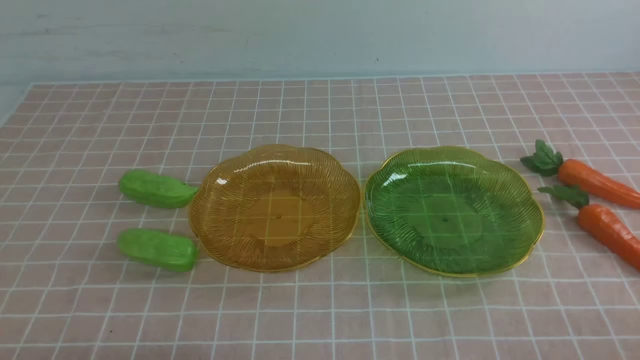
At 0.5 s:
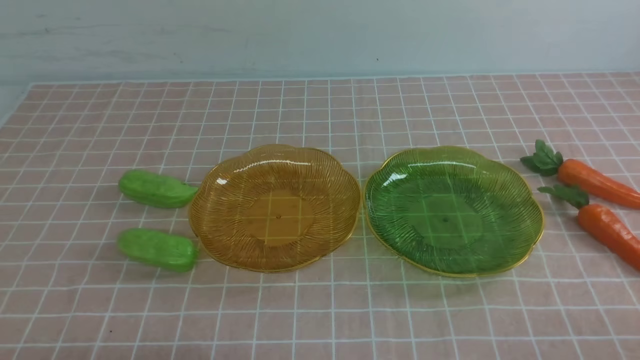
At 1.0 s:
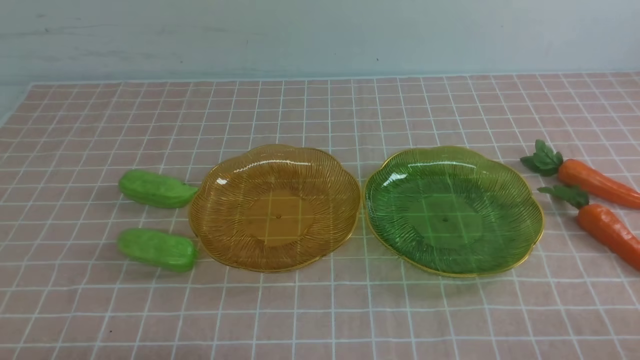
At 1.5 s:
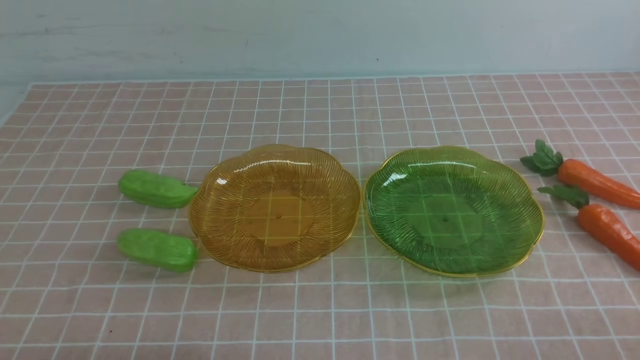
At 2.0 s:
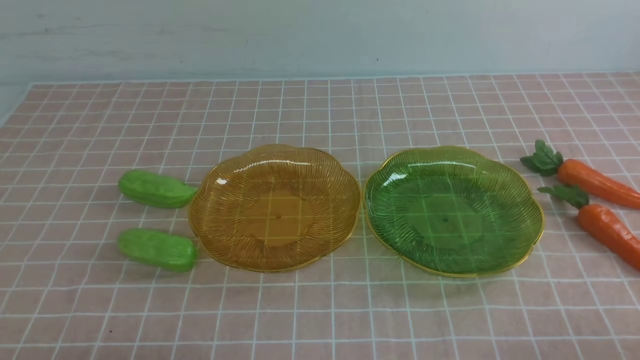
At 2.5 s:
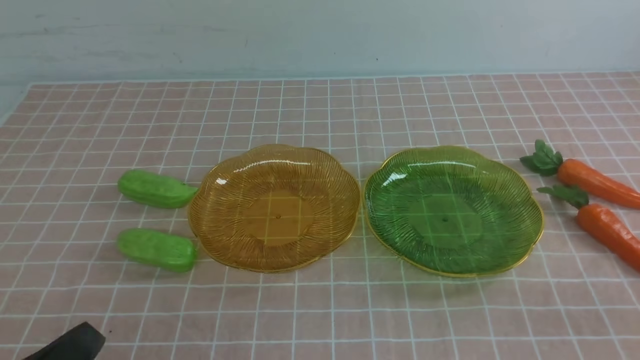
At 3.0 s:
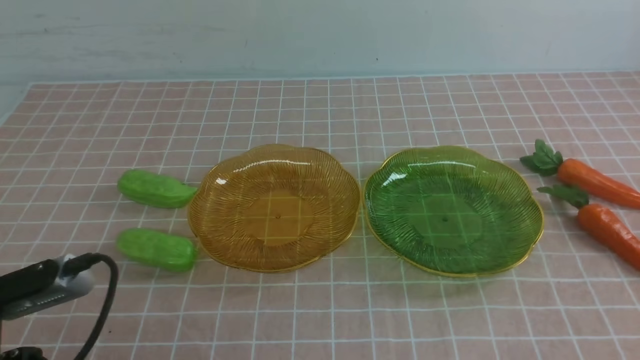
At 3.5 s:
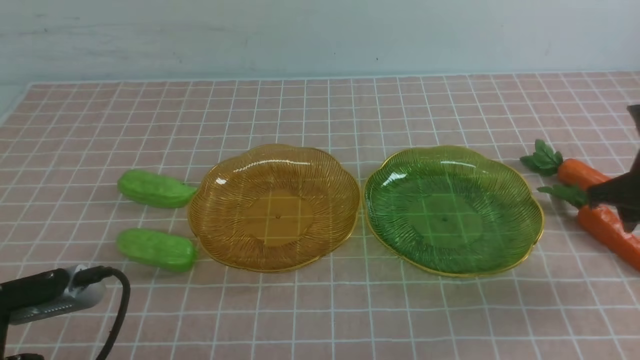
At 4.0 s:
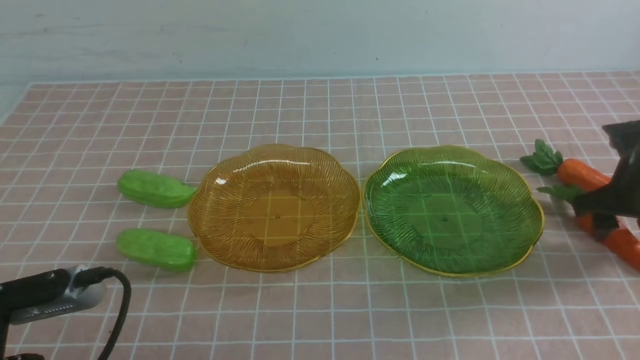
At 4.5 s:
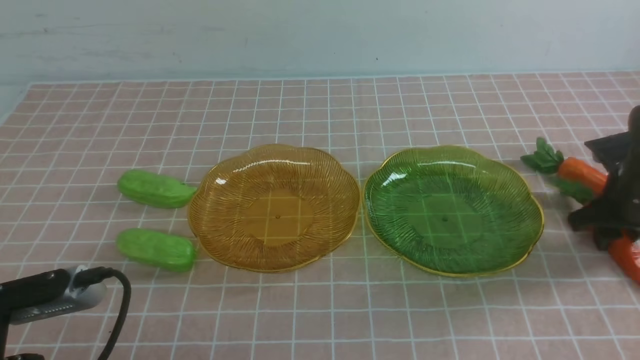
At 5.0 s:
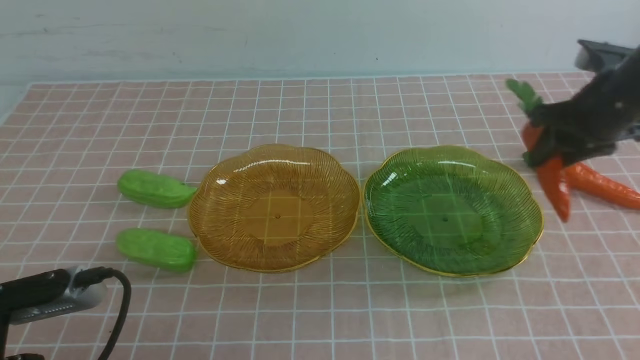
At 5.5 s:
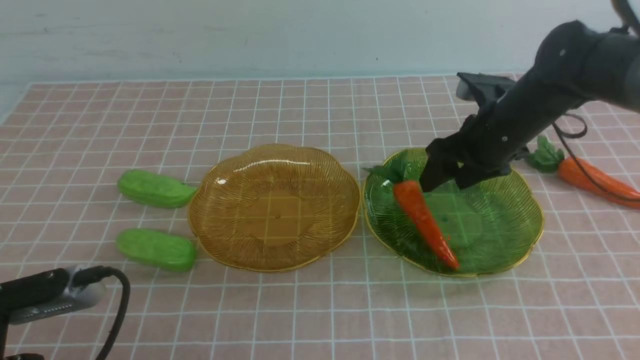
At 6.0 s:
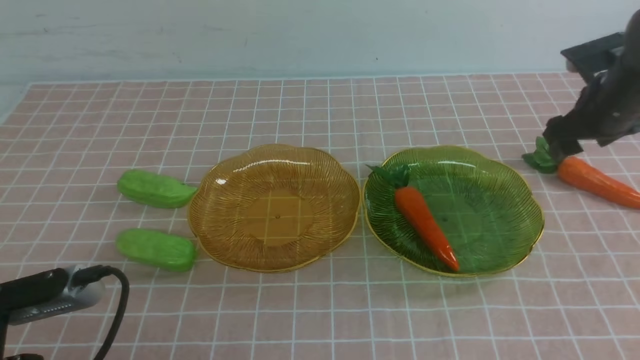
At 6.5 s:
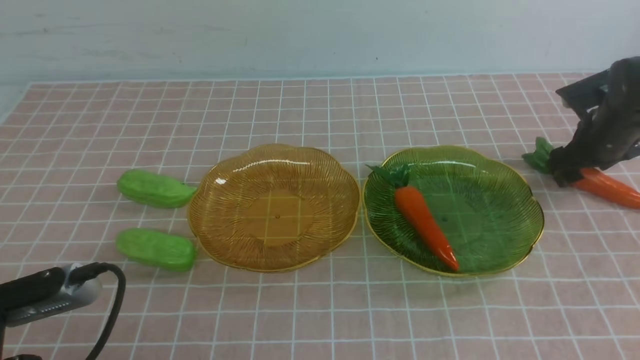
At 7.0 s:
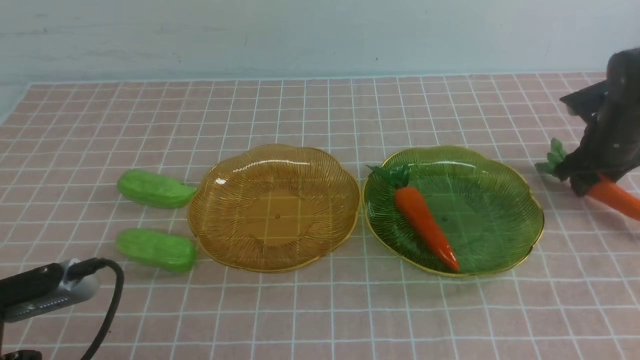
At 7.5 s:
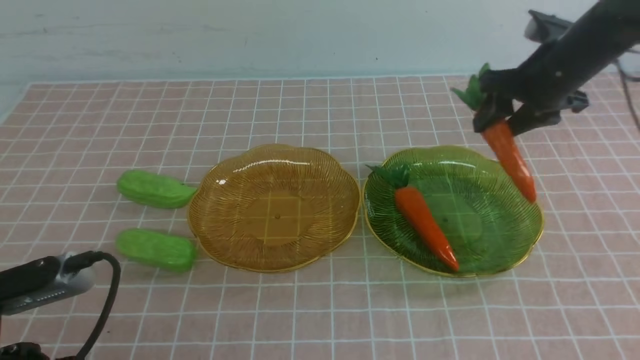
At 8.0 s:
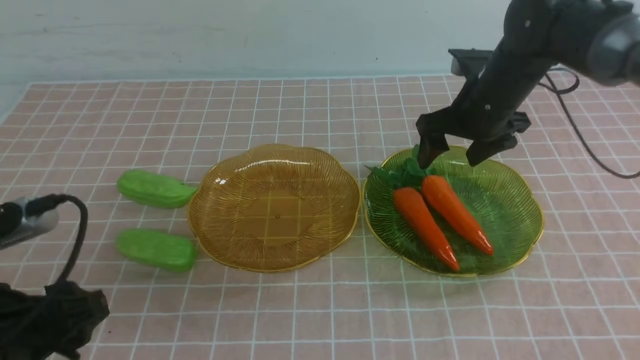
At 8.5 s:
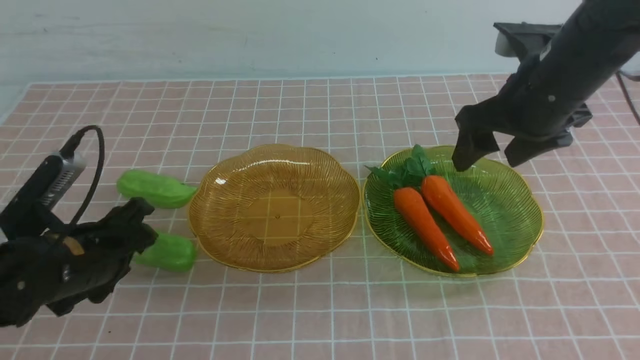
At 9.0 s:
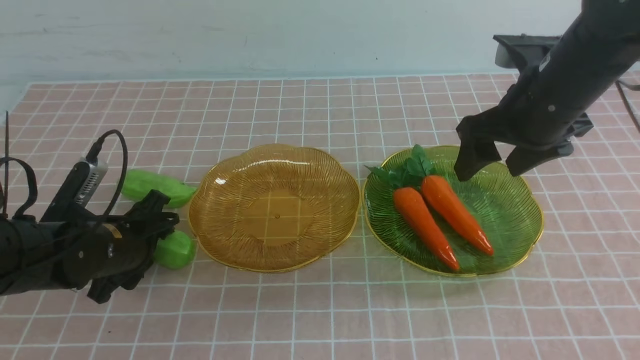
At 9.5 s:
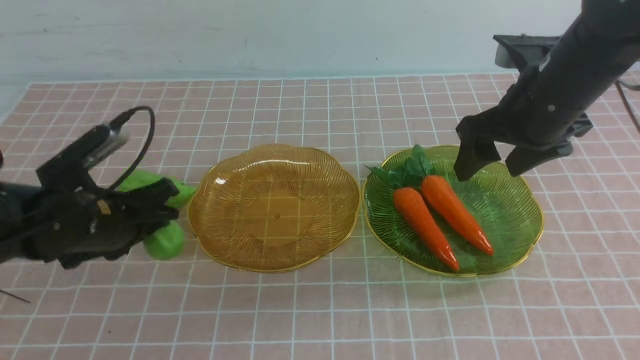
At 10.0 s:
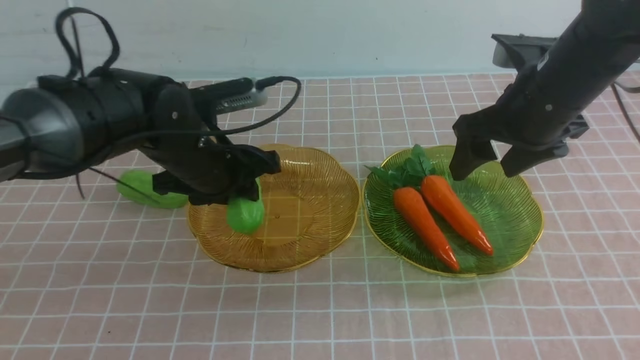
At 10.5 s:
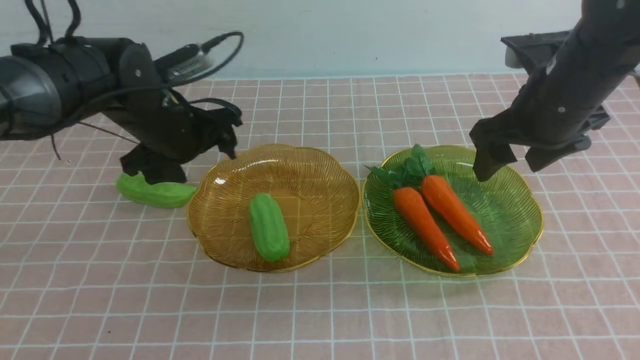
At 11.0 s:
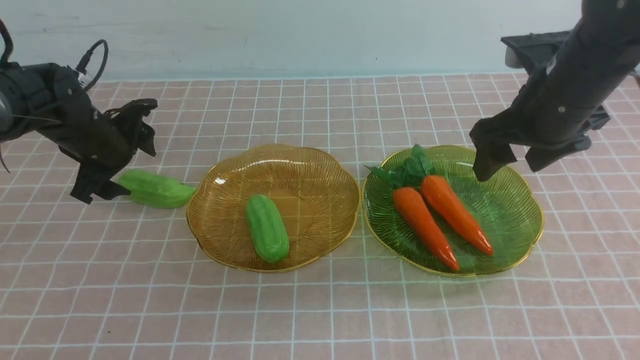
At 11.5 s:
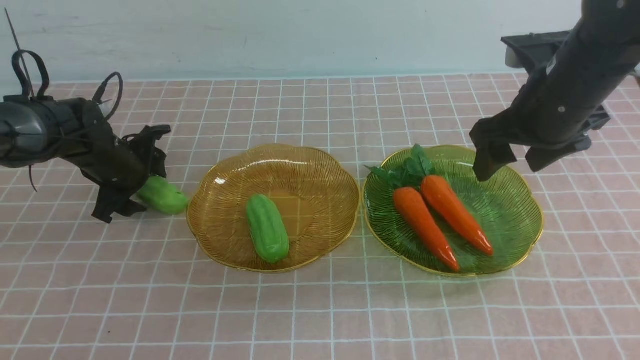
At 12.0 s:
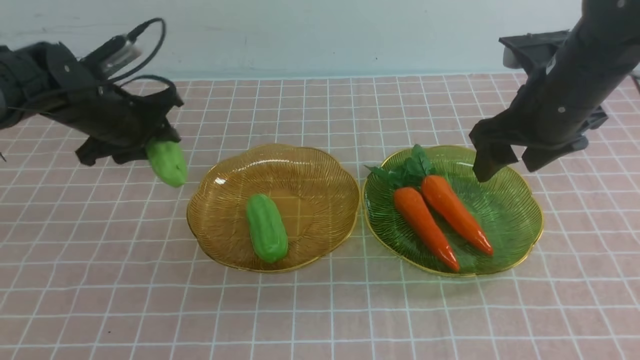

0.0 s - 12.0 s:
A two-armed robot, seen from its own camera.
Step, 0.0 s - 5.5 s: use the right arm to grab a carrot and put it into the right plate.
2.0 s - 4.0 s: The left gripper travels upward and forward by approximately 10 cm, while the right gripper travels forward by approximately 30 cm, and opens.
4.0 s - 6.0 s: The right gripper is displaced forward by some 10 cm, and travels to the left and back again, some 15 cm each way.
6.0 s - 8.0 s: The right gripper moves to the left, roughly 15 cm, while the left gripper opens.
8.0 s - 10.0 s: The right gripper goes roughly 10 cm backward and upward. The left gripper moves forward and to the right, roughly 25 cm.
10.0 s - 12.0 s: The left gripper heads to the left and forward, covering roughly 10 cm, and opens and closes again.

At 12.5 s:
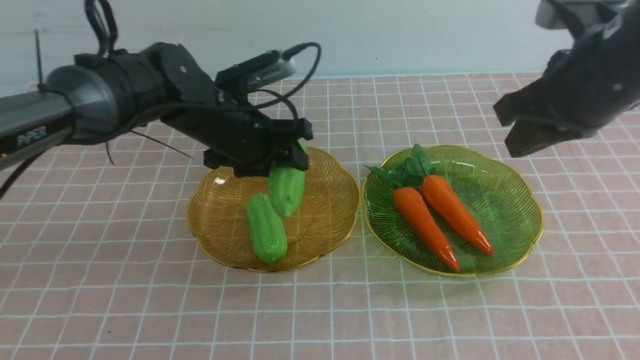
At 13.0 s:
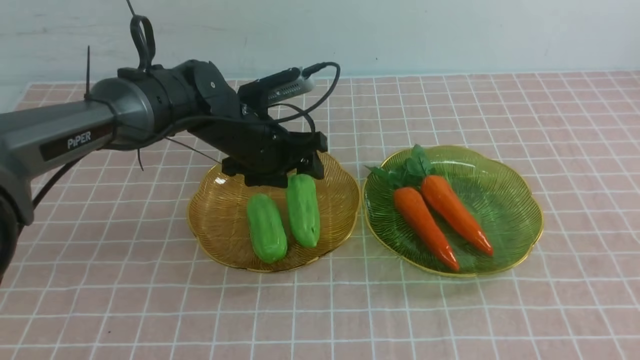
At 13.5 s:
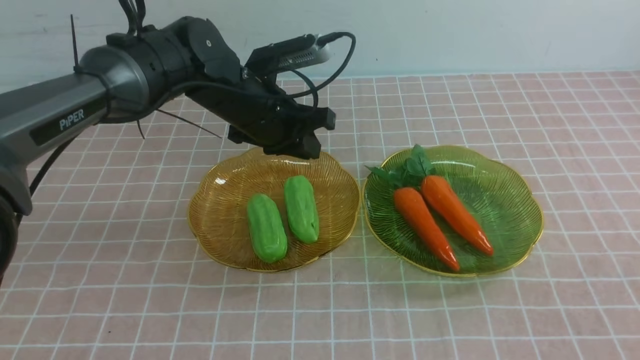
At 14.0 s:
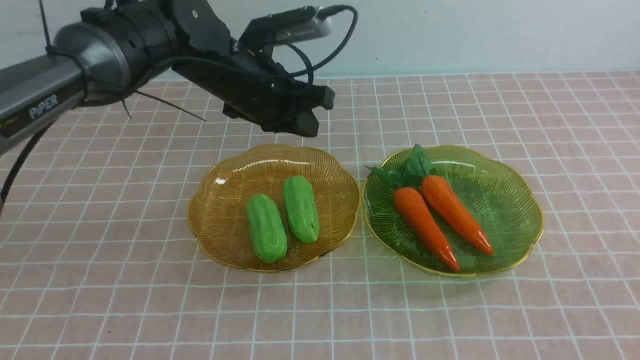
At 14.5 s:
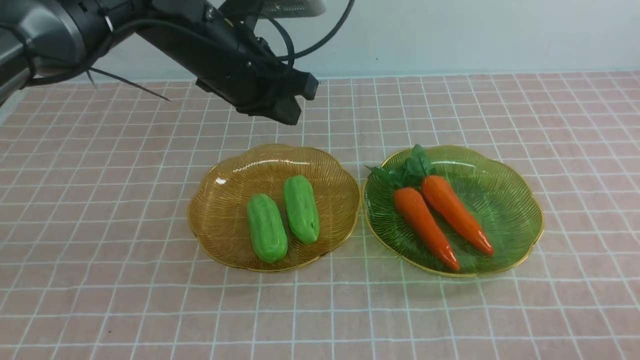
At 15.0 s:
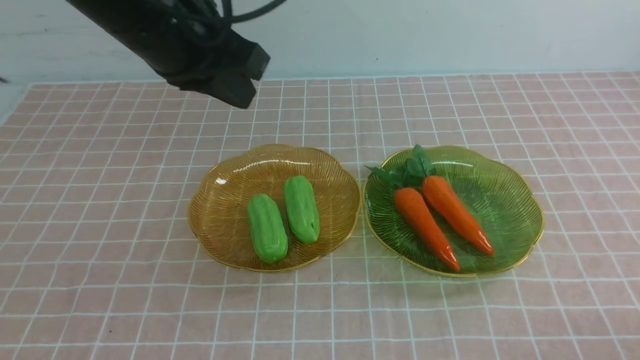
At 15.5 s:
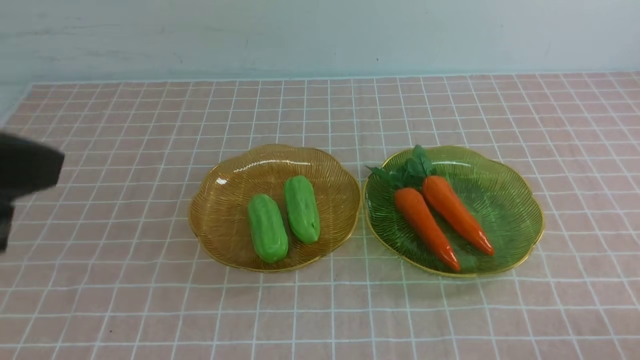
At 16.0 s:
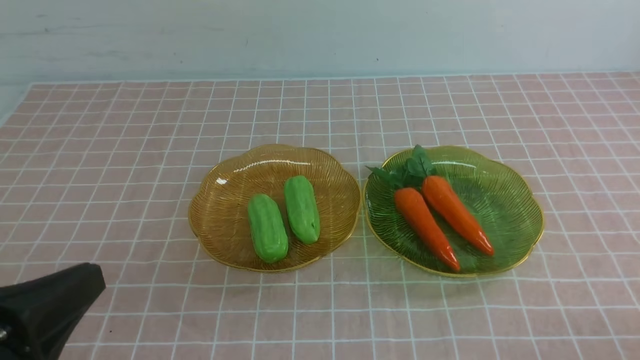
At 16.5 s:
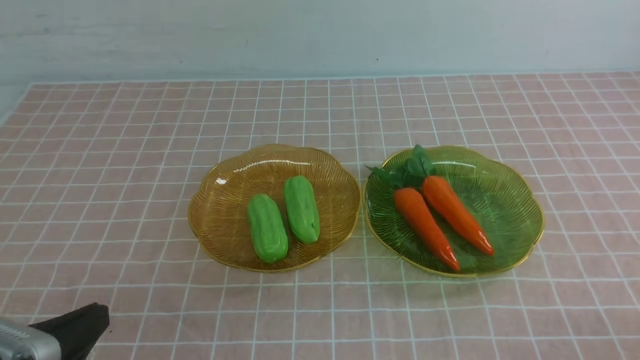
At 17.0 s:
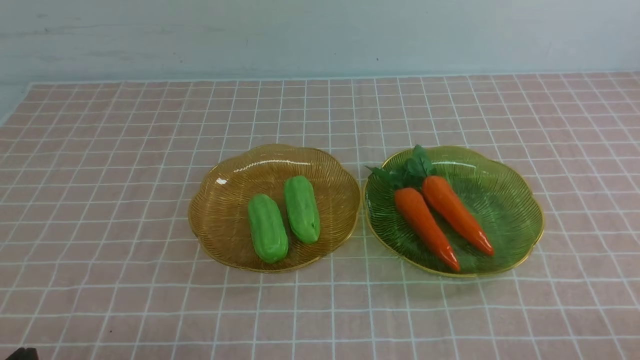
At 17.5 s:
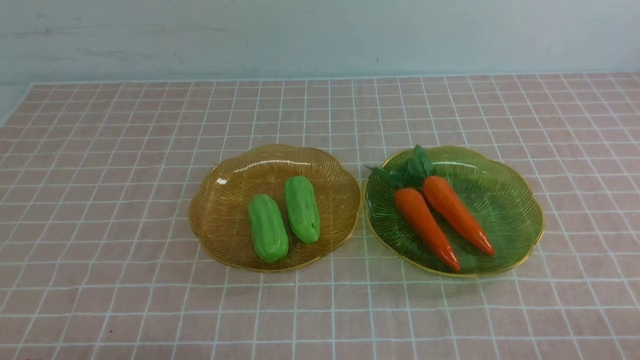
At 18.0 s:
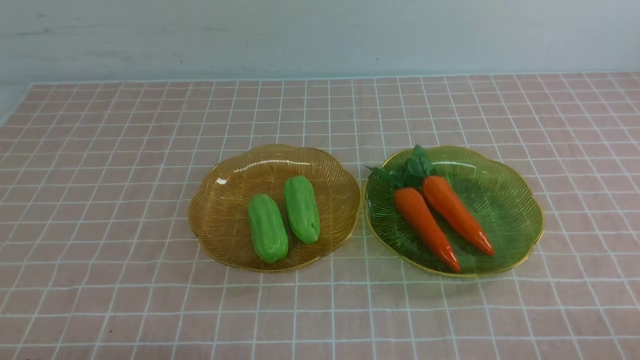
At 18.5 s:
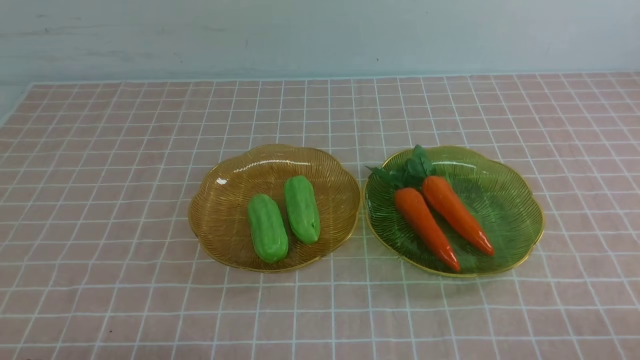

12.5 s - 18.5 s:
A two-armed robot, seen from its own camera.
12.5 s - 14.5 s: The right gripper shifts some 25 cm backward and downward. The left gripper travels upward by approximately 10 cm, and closes its fingers.
14.5 s - 16.5 s: The left gripper goes about 35 cm backward and to the left.
16.5 s - 18.5 s: There are only small adjustments of the grippers.
